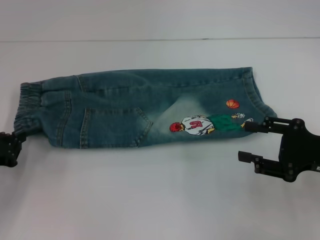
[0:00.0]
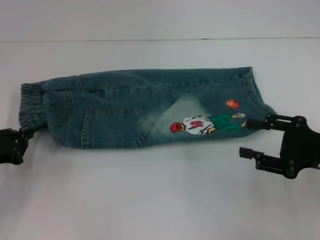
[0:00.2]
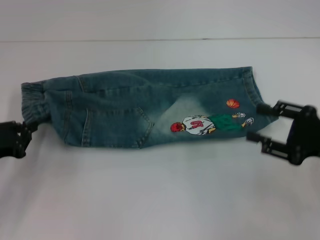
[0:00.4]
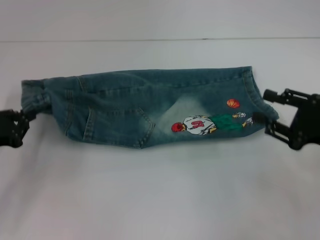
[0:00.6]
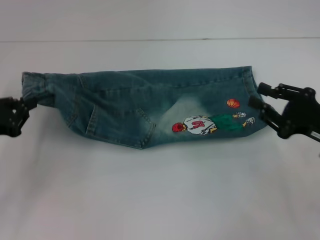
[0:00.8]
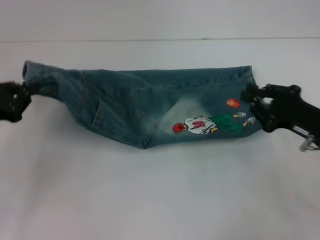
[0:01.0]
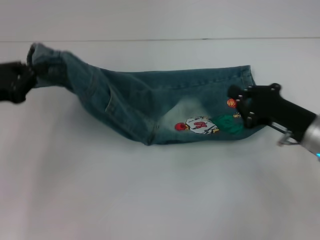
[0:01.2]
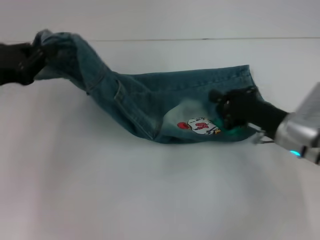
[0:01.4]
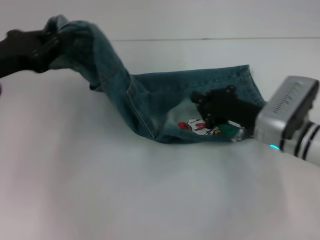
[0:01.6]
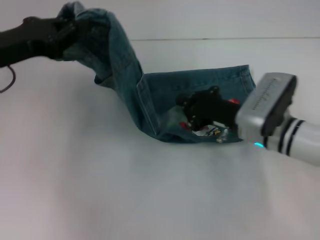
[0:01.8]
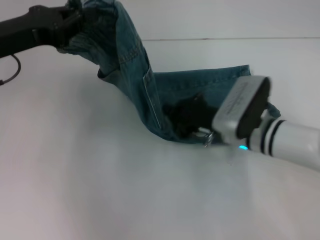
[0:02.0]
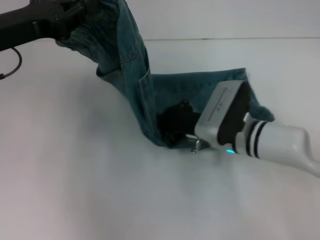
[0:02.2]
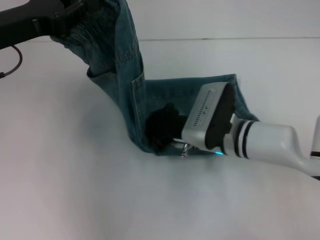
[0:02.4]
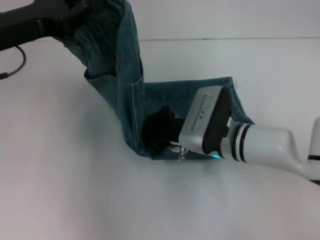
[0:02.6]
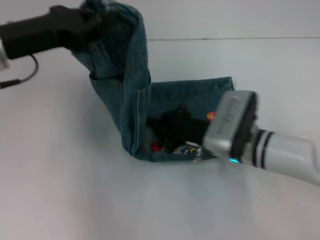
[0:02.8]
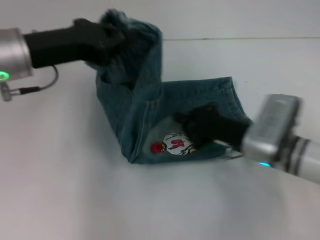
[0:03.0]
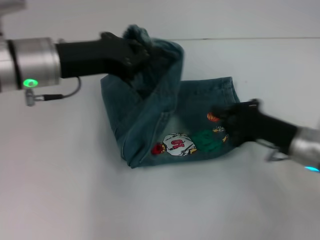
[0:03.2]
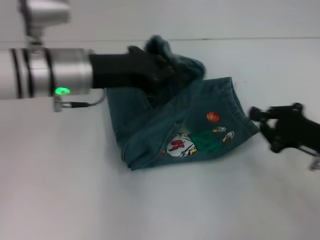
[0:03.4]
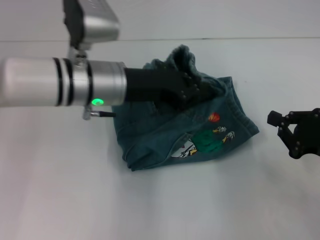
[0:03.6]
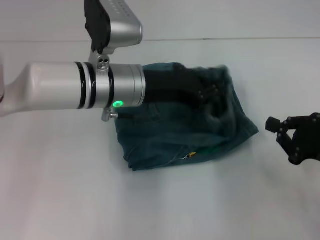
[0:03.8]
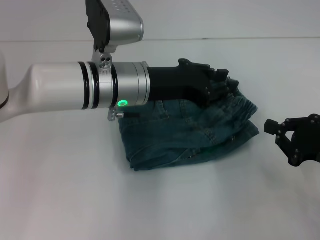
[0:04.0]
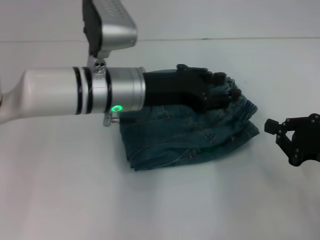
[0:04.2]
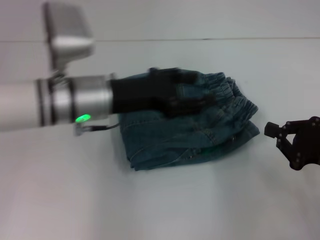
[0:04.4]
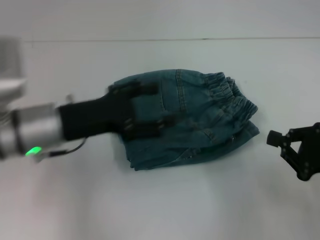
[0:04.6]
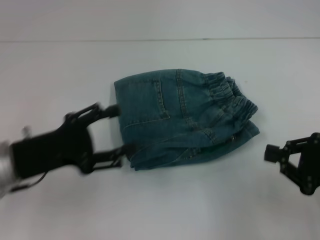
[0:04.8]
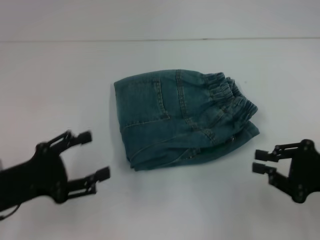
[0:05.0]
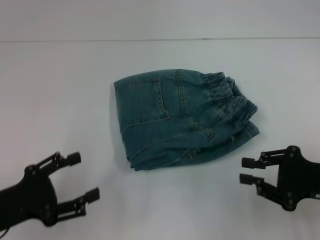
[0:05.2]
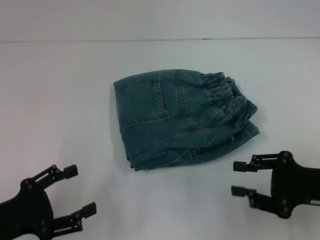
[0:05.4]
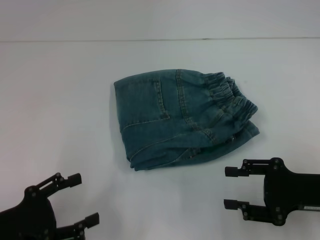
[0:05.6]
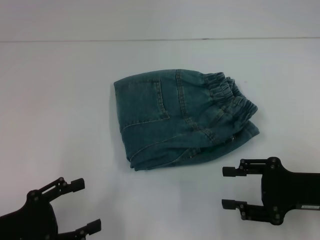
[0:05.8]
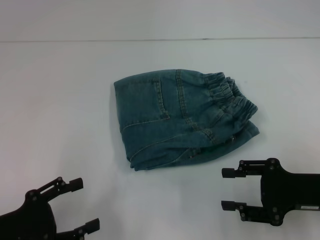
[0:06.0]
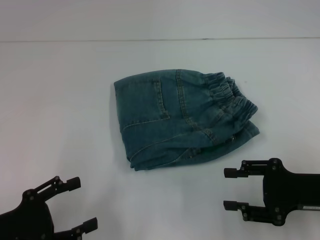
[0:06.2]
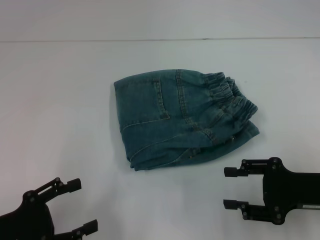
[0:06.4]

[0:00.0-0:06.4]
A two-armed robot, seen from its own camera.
Step, 0:00.4 to 0:02.8: Press the middle of the pants with your right hand.
Step, 0:03.0 to 0:04.2: Fold to the right with your left hand.
0:00.0 to 0:01.6: The left gripper is displaced upward and forward by roughly 15 cm, while the right gripper shifts roughly 15 cm to the left, forward and downward, and closes up.
0:01.6 to 0:03.2: The left gripper heads to the right, covering about 10 cm. The right gripper reaches roughly 10 cm to the left, then returns.
0:03.2 to 0:04.8: The right gripper moves to the right and backward, approximately 10 cm, while the left gripper is displaced backward, downward and to the left by some 15 cm, and opens.
0:04.8 to 0:06.4: The right gripper opens. The left gripper travels backward by approximately 10 cm.
